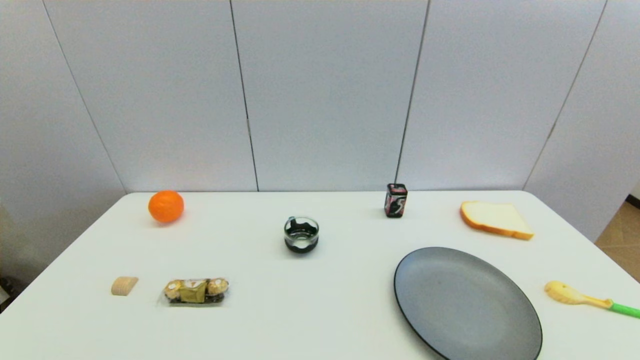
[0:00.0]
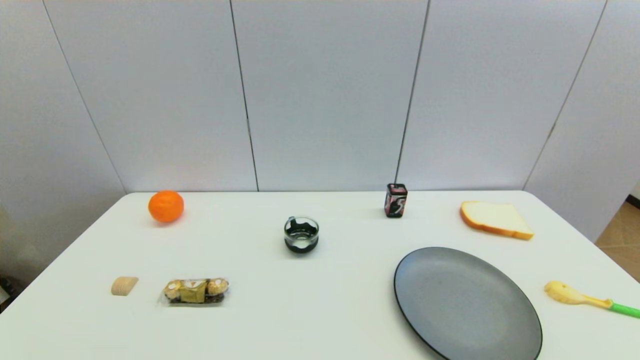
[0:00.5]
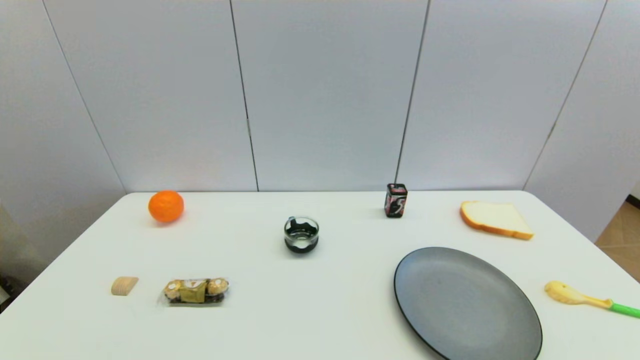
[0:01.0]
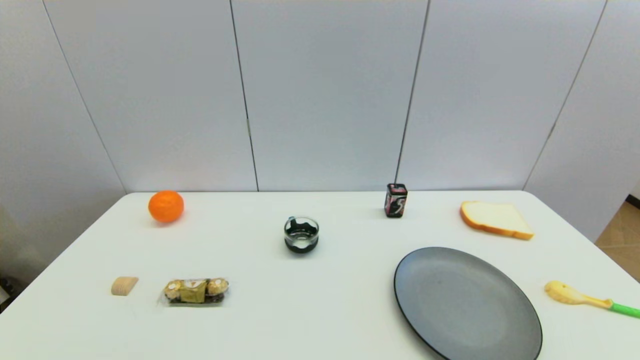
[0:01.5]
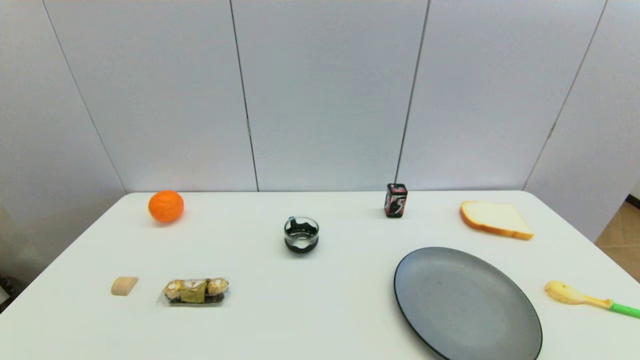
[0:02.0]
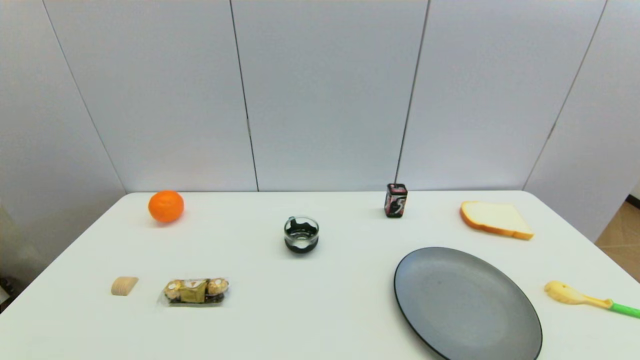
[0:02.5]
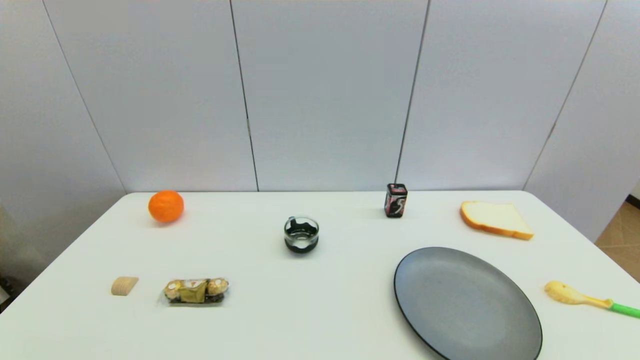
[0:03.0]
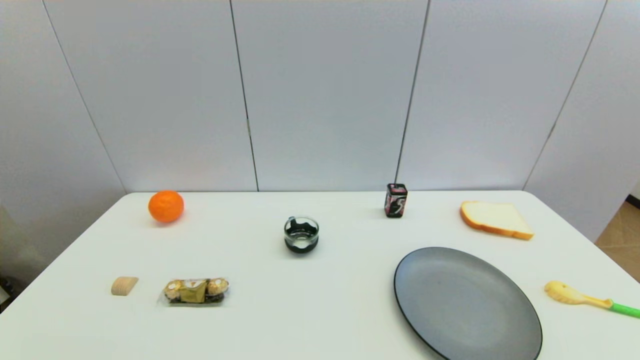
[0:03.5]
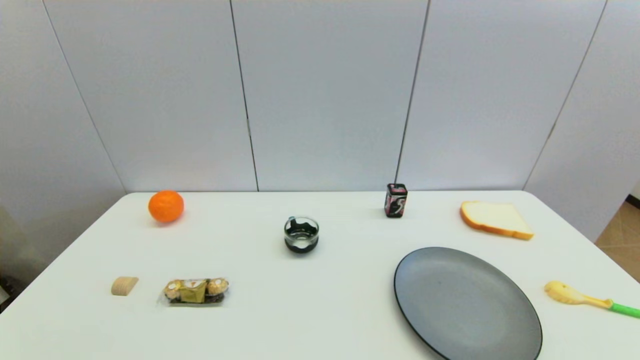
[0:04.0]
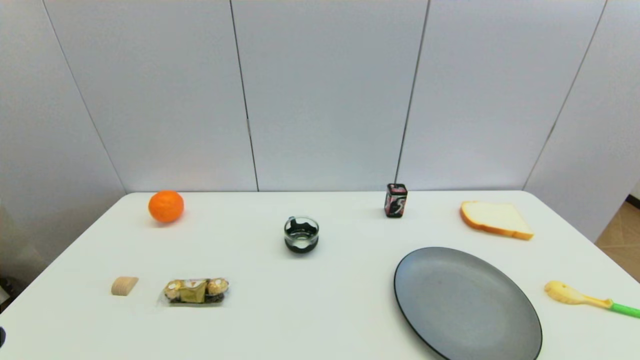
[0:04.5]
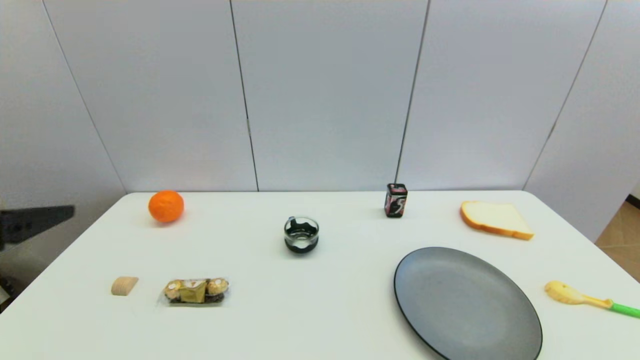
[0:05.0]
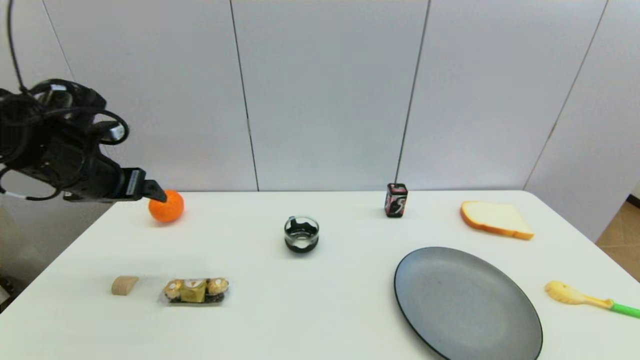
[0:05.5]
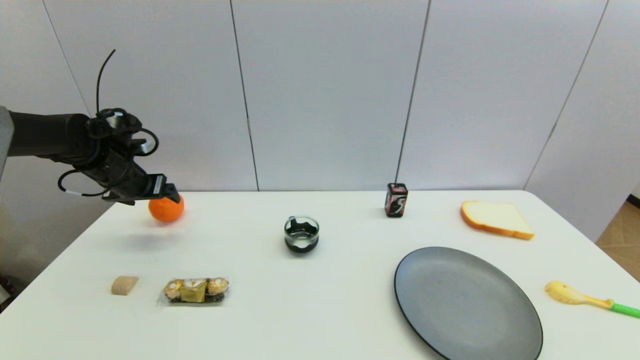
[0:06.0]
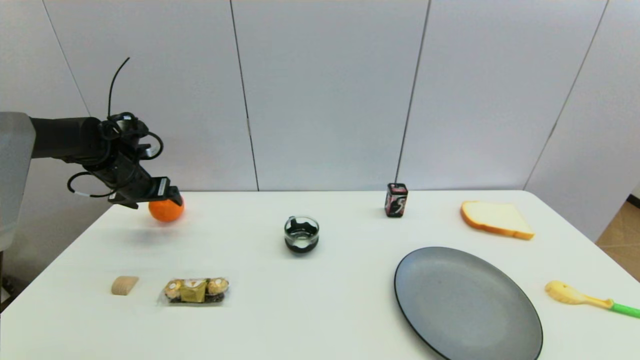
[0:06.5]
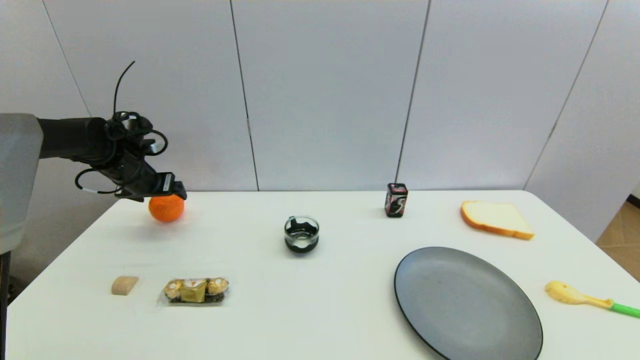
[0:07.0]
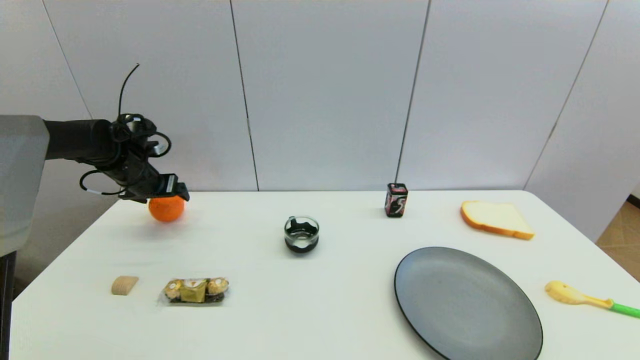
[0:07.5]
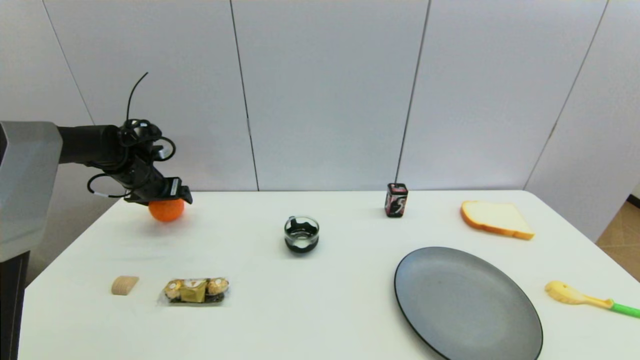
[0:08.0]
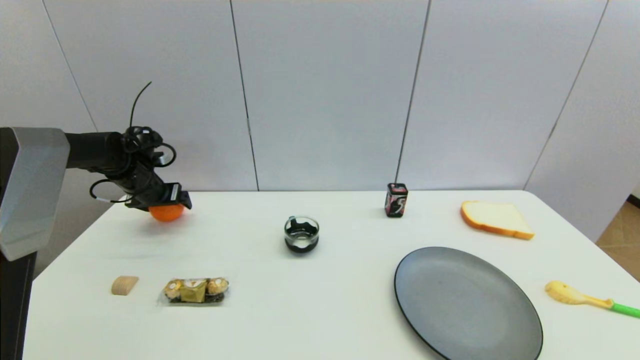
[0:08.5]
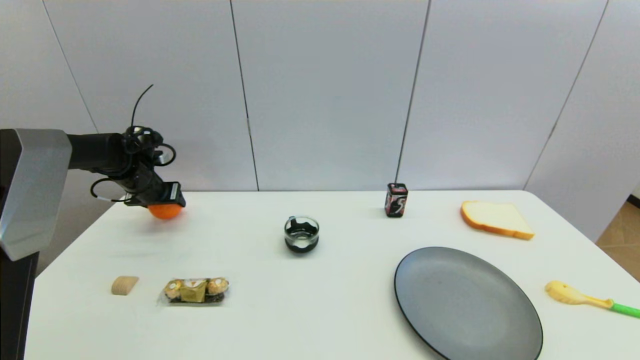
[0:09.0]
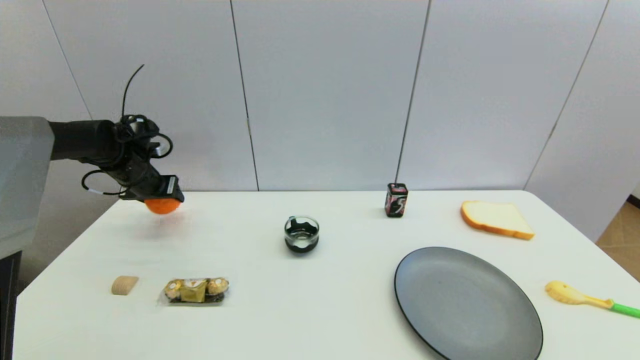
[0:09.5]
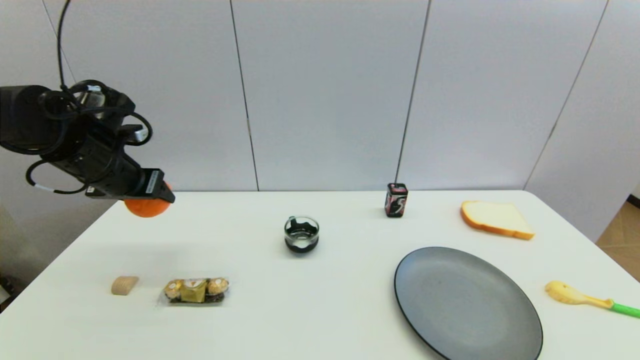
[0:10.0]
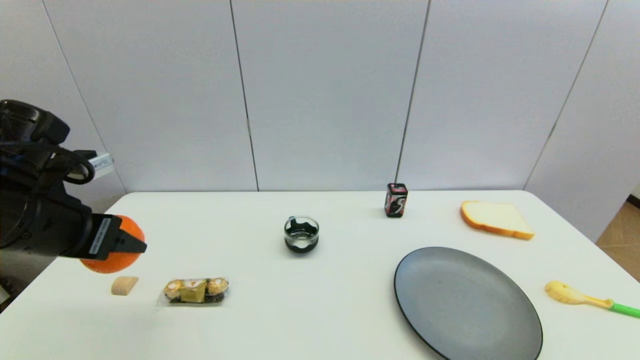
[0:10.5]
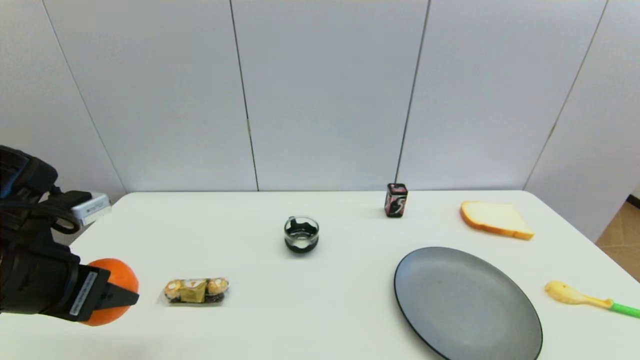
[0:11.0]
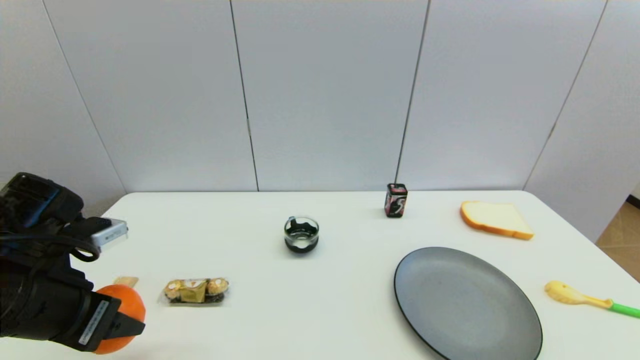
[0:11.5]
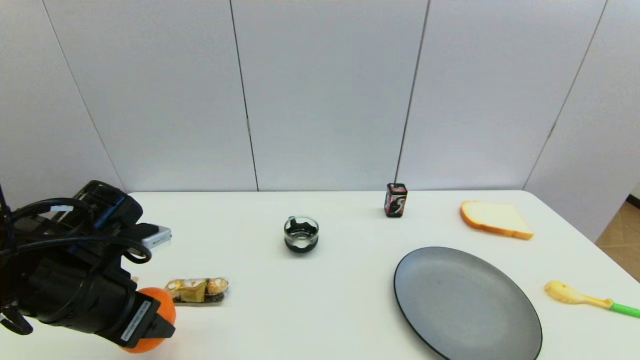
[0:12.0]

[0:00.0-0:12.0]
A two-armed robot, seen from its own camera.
Step, 0:04.5 to 0:09.0: Grasp the orange with left gripper.
0:00.0 to 0:02.0: Both grippers stay about where they are.
0:04.0 to 0:06.0: The left gripper shifts roughly 40 cm forward.
0:06.0 to 0:08.0: There are only small adjustments of the grippers.
0:08.0 to 0:10.0: The left gripper travels backward and upward by roughly 15 cm, and closes up.
0:10.0 to 0:12.0: The left gripper shifts approximately 15 cm backward, downward and to the right.

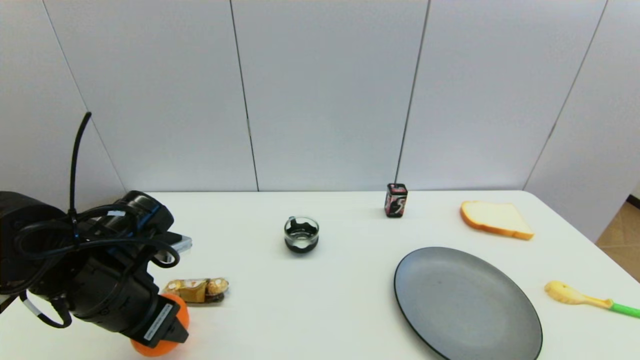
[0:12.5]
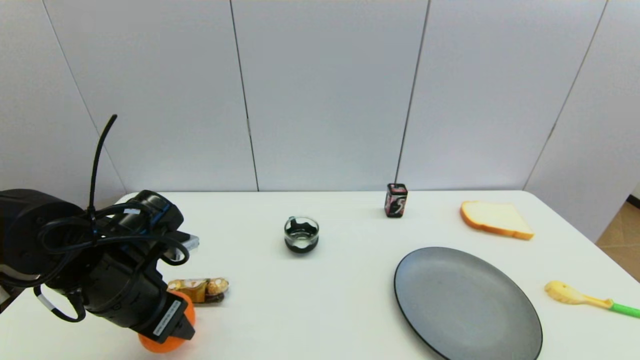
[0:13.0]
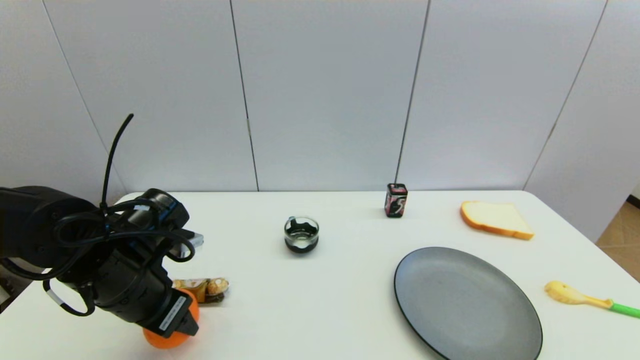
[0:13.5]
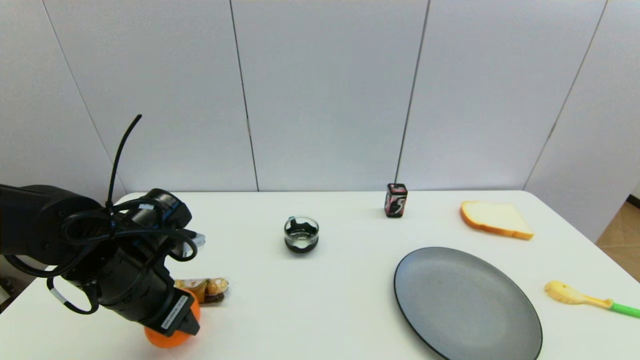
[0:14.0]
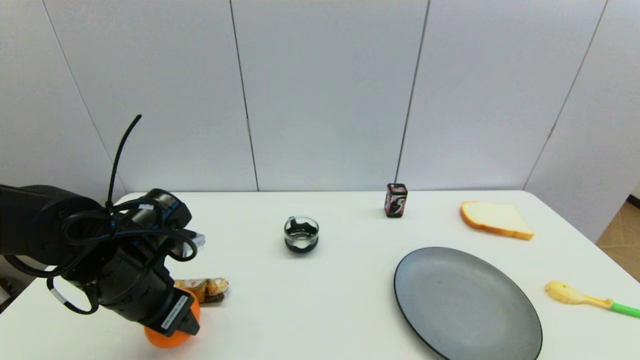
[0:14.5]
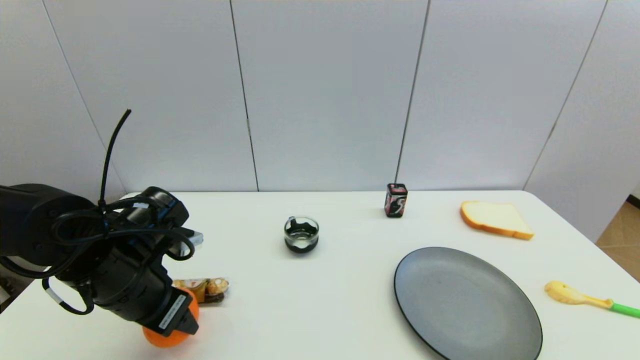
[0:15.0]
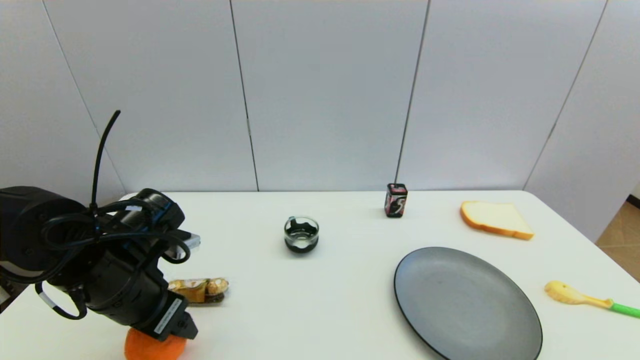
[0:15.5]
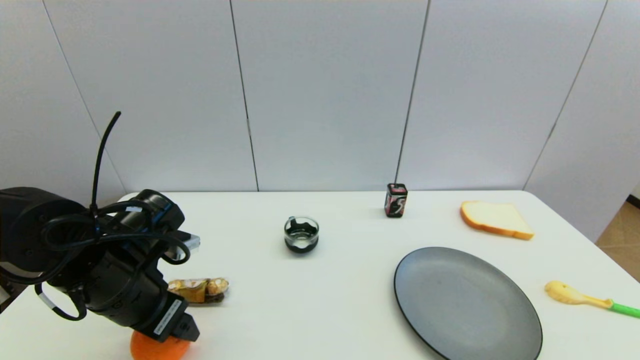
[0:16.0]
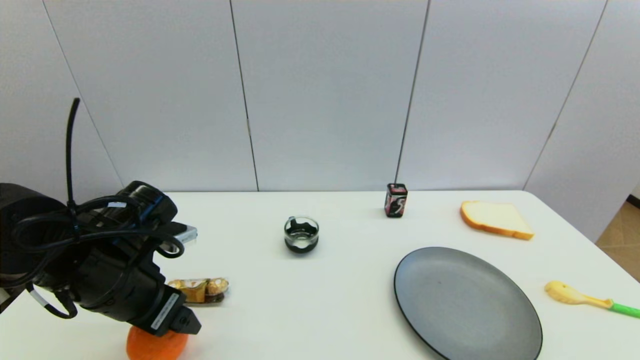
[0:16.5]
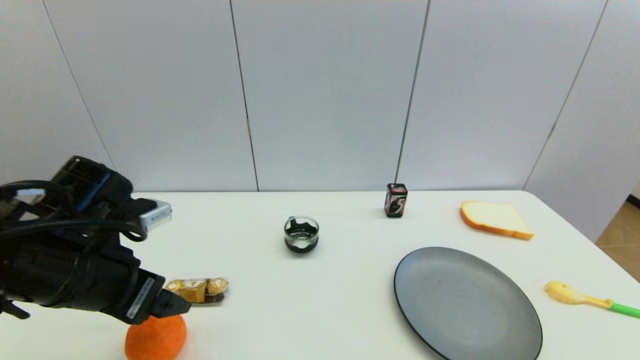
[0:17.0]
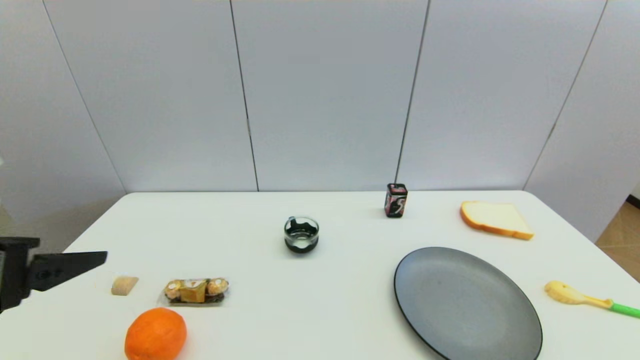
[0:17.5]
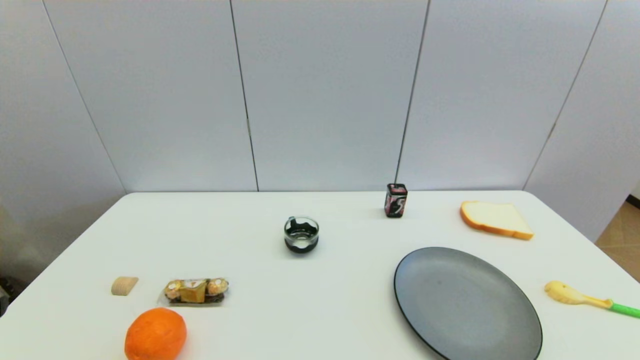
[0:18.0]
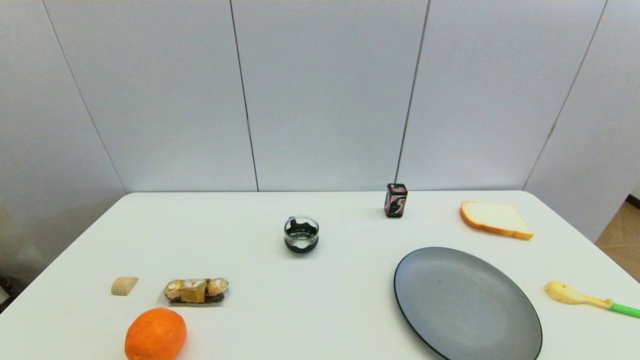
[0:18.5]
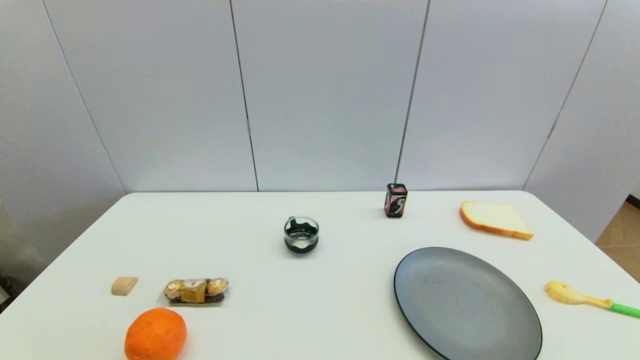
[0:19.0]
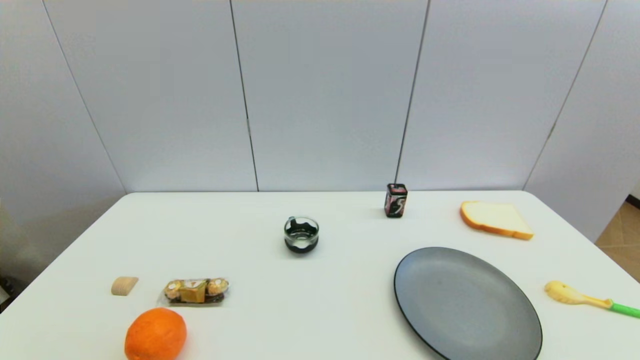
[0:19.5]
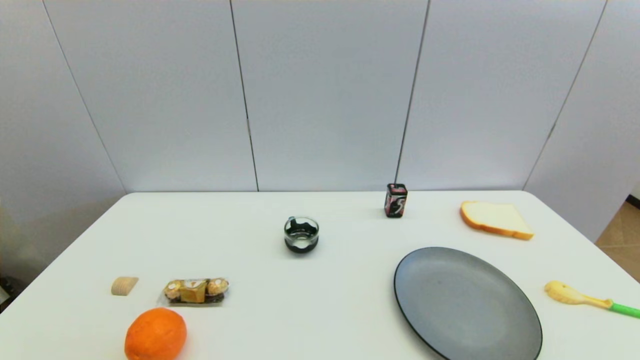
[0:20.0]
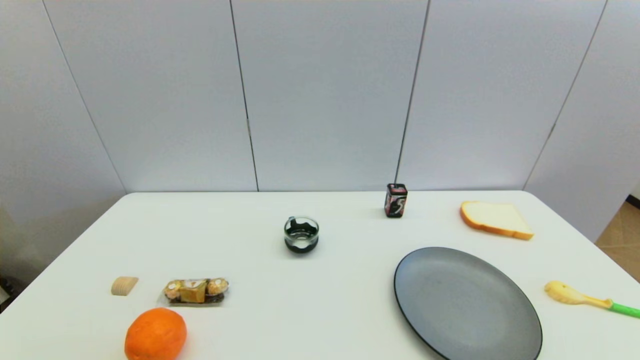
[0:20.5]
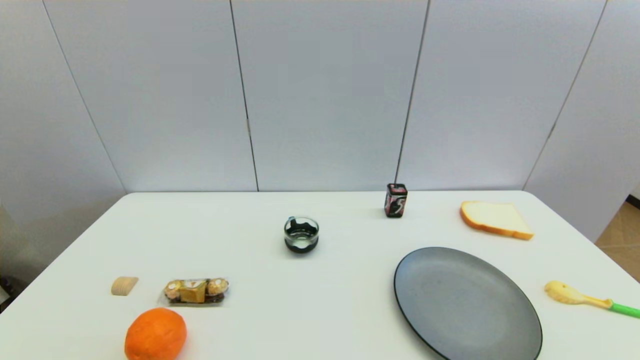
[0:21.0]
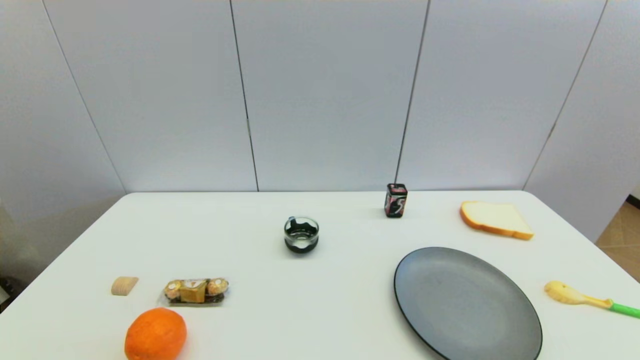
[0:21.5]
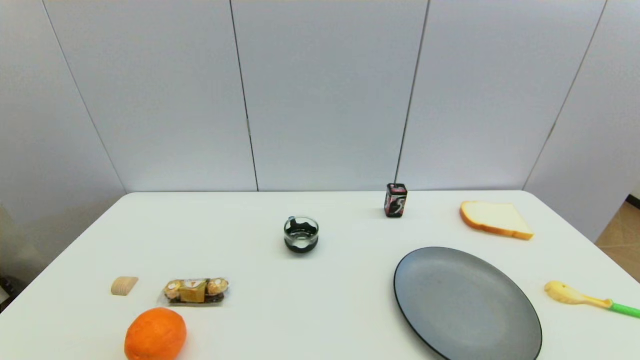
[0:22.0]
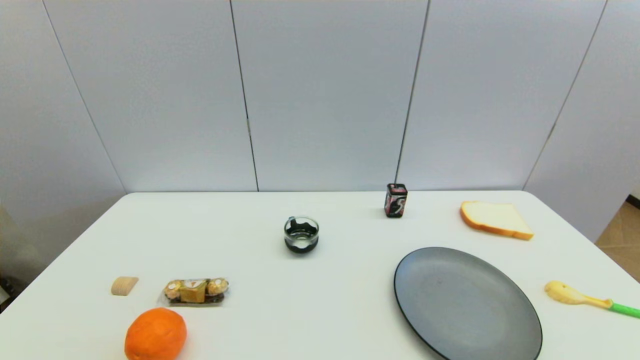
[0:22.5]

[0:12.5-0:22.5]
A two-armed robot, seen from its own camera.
Step, 0:12.5 to 0:15.5: Place the orange on the table with left gripper.
0:12.5 to 0:14.5: The grippers move only a little.
0:14.5 to 0:16.5: The left gripper opens.
0:16.5 to 0:18.5: The left gripper is displaced backward by some 25 cm.
0:20.5 to 0:22.5: Both grippers stay about where they are.
